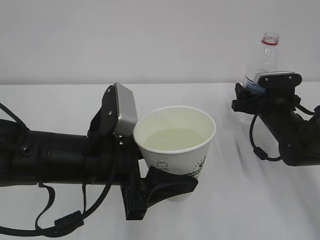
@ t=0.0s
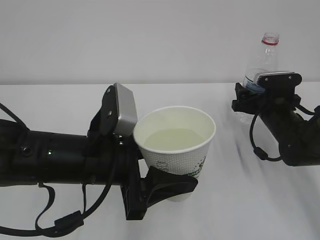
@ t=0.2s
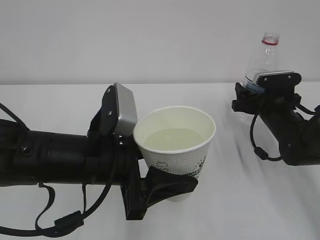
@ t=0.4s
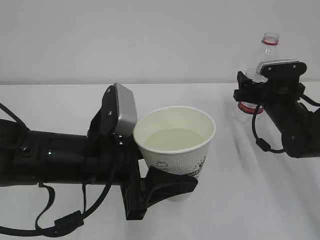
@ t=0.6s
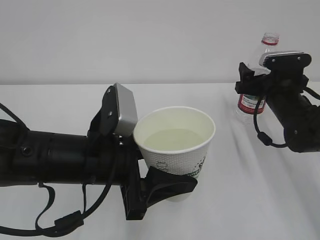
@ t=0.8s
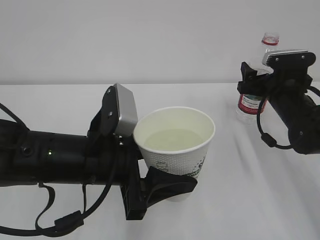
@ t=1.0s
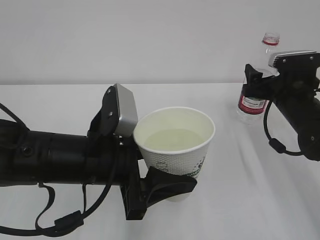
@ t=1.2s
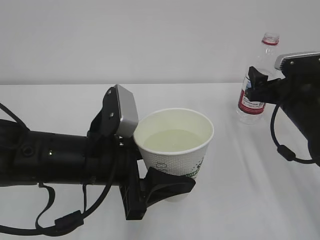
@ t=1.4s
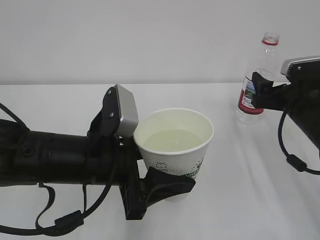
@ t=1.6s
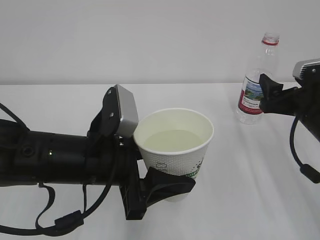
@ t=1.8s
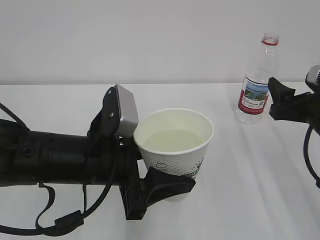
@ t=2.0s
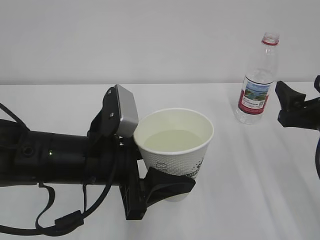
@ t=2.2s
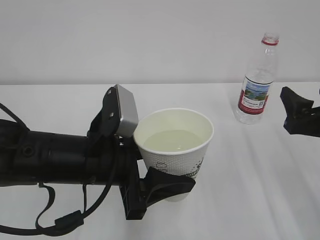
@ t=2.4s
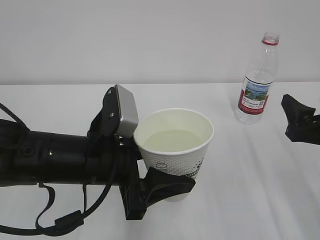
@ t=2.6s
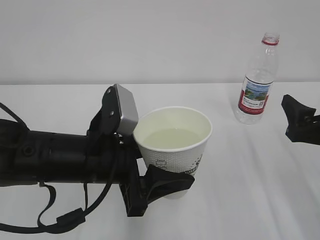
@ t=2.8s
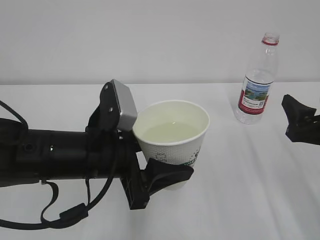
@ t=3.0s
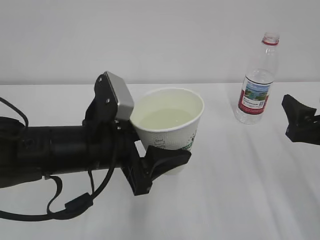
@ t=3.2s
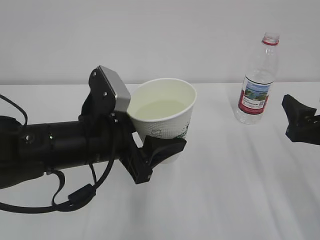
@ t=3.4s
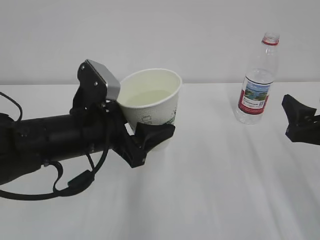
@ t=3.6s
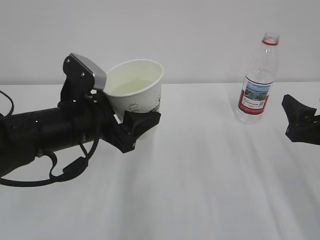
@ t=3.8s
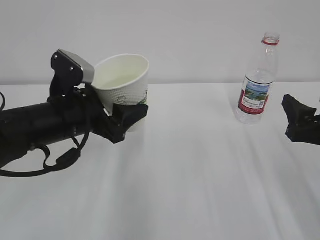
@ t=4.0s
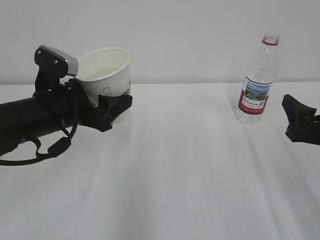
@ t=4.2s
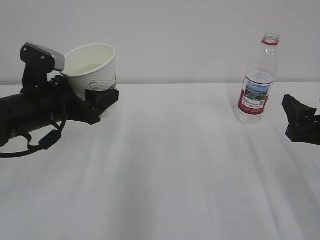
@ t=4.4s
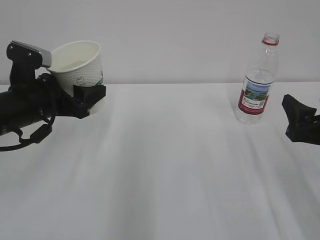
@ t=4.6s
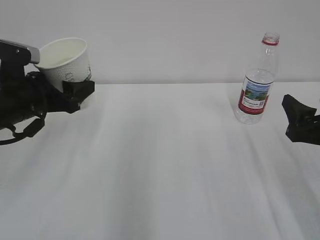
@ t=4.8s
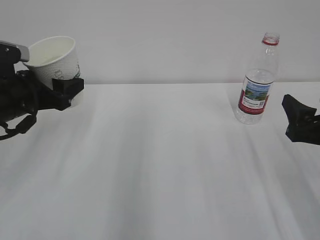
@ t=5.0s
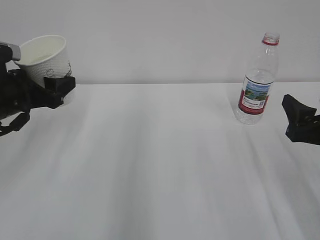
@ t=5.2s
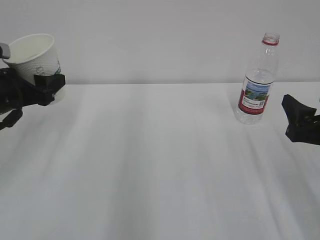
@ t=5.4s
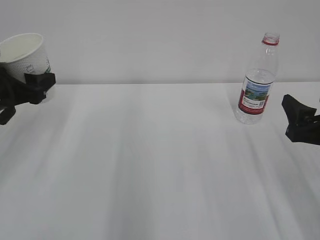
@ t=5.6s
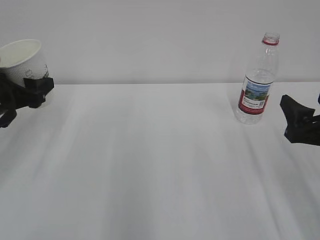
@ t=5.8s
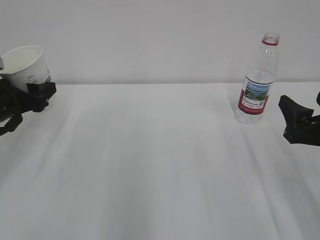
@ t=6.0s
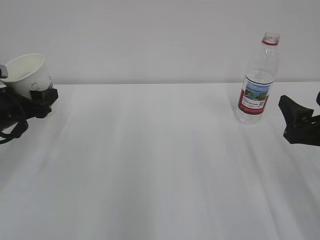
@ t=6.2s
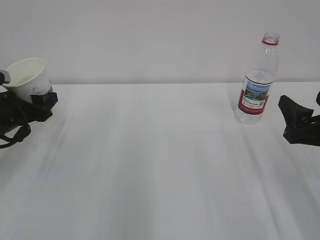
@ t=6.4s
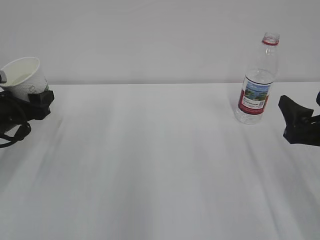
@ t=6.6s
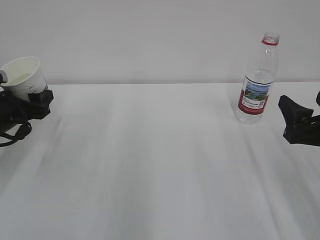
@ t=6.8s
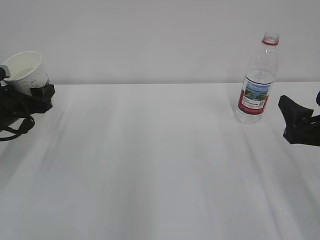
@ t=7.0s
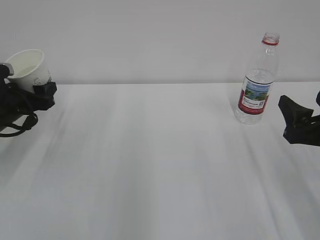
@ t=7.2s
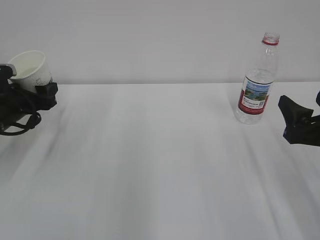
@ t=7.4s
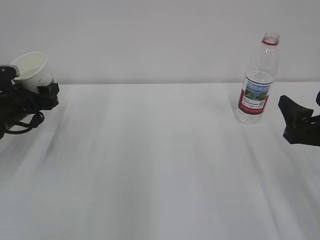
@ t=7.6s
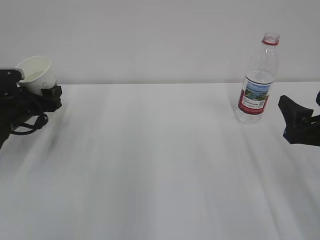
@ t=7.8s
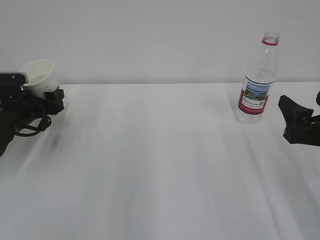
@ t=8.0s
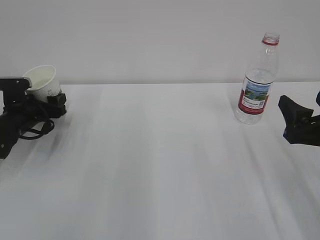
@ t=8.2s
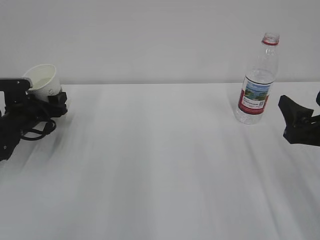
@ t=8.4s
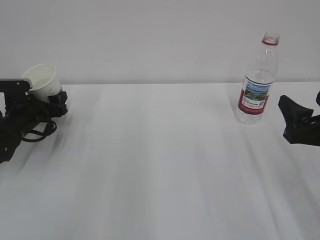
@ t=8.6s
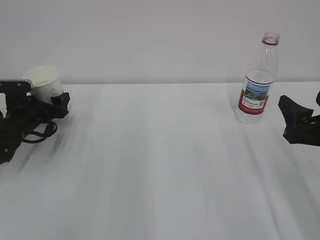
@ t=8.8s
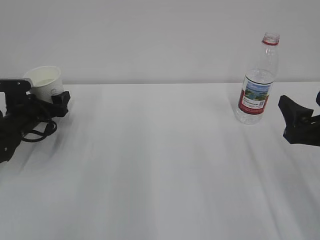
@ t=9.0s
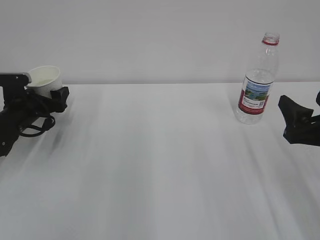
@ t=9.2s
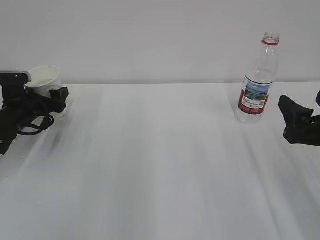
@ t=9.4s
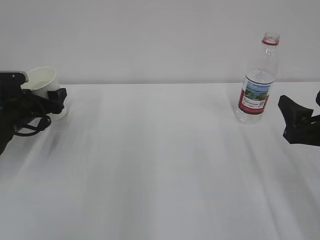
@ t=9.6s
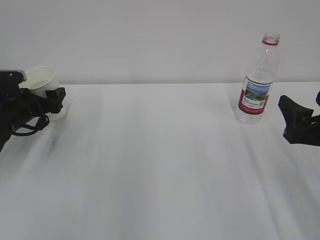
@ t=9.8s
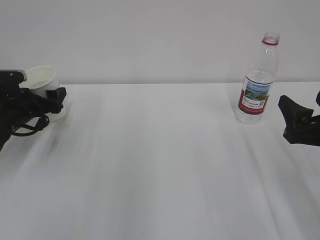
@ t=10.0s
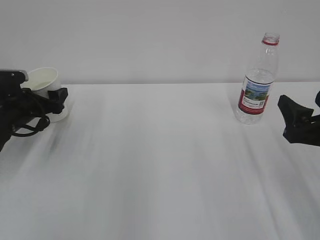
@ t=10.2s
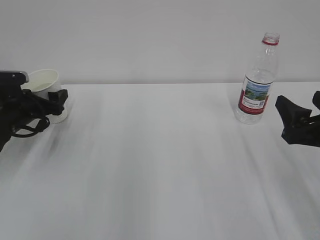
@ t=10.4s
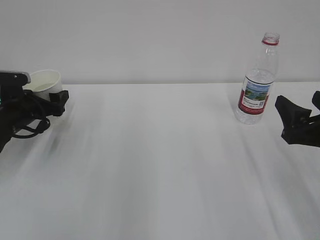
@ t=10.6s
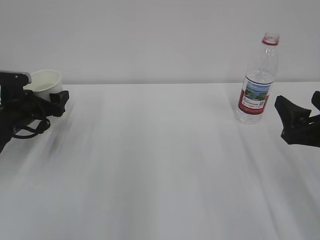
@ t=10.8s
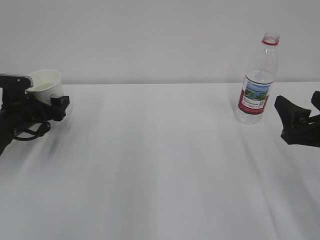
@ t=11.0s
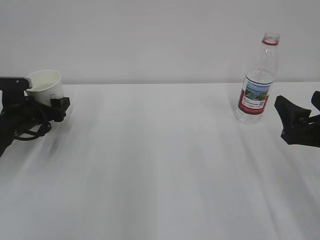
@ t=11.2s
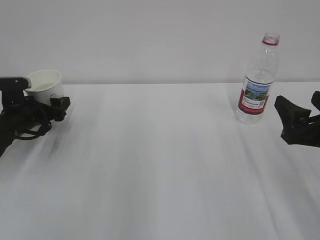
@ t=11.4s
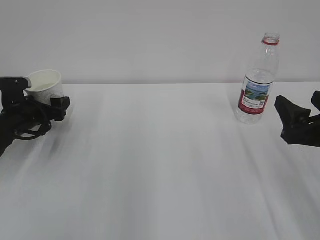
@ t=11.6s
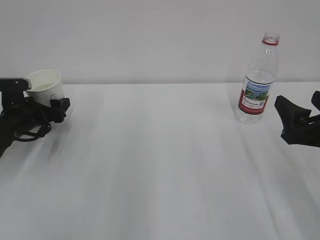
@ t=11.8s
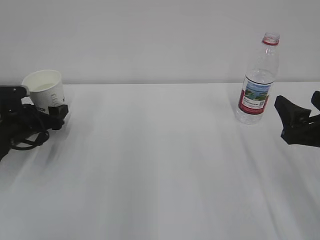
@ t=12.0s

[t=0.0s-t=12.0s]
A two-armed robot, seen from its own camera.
t=0.0s to t=1.6s: The right gripper heads backward and upward, covering roughly 10 cm.
t=1.6s to t=3.0s: The right gripper travels backward by about 10 cm.
t=3.0s to t=4.4s: The left gripper shifts some 15 cm to the left and forward.
t=4.4s to t=6.0s: The left gripper shifts approximately 10 cm to the left.
t=6.0s to t=7.6s: The left gripper is displaced forward and downward by roughly 10 cm.
t=7.6s to t=9.0s: The left gripper opens up.
t=9.0s to t=12.0s: The grippers move only a little.

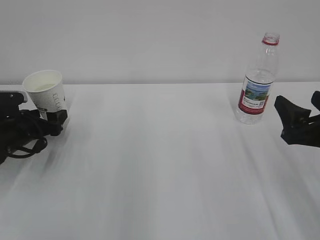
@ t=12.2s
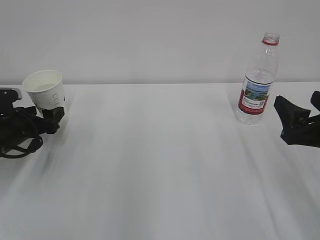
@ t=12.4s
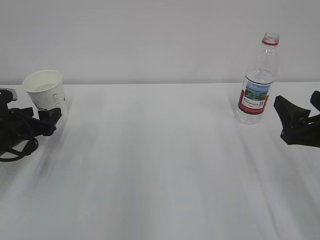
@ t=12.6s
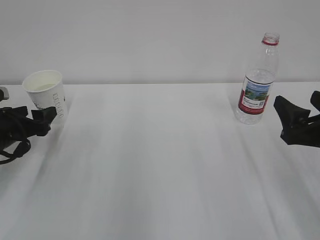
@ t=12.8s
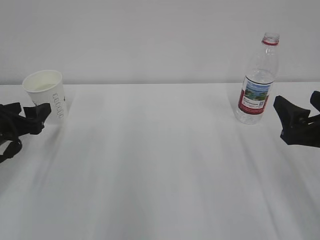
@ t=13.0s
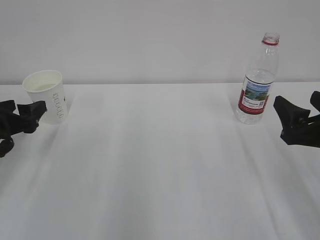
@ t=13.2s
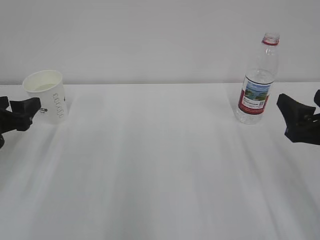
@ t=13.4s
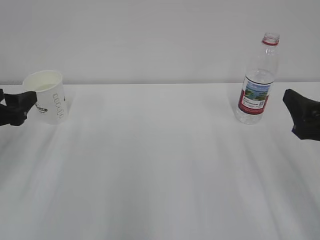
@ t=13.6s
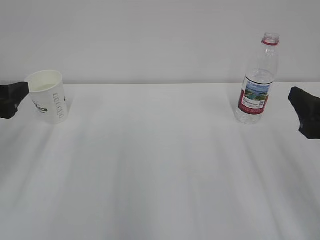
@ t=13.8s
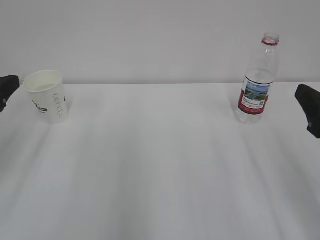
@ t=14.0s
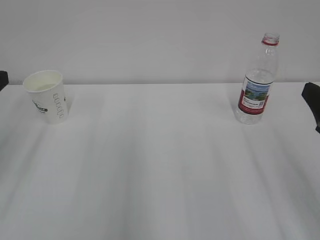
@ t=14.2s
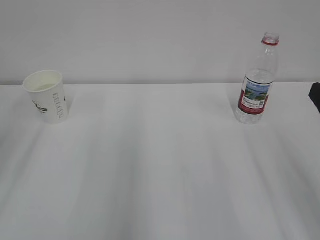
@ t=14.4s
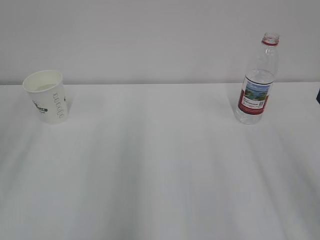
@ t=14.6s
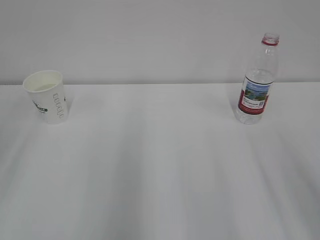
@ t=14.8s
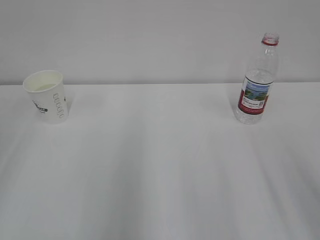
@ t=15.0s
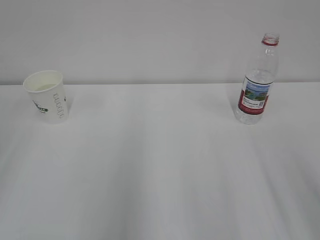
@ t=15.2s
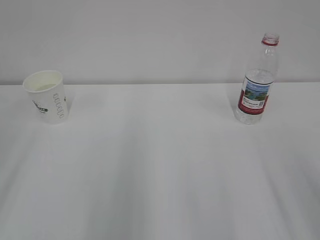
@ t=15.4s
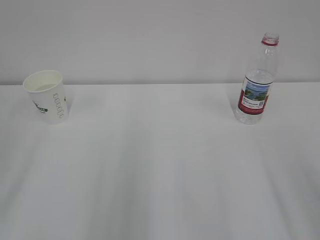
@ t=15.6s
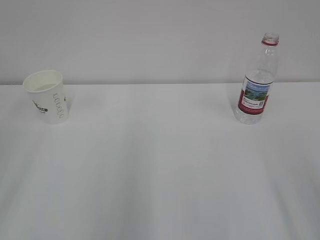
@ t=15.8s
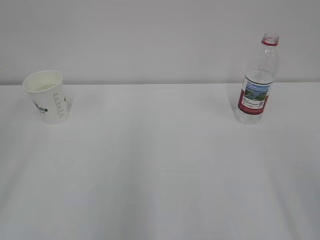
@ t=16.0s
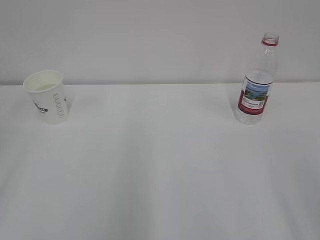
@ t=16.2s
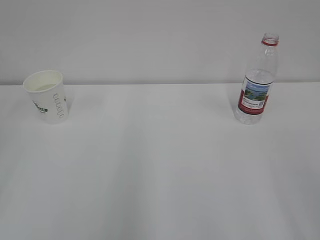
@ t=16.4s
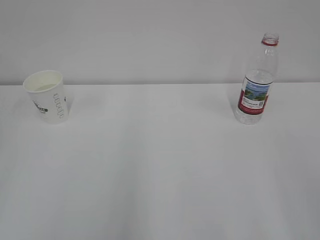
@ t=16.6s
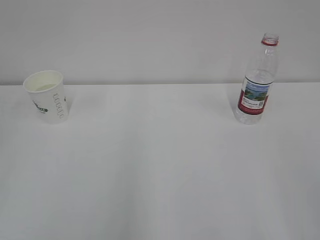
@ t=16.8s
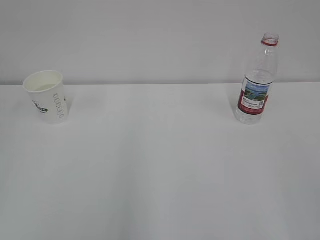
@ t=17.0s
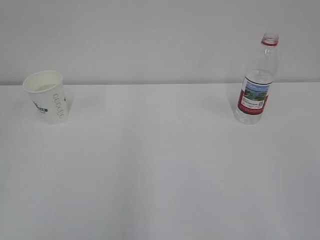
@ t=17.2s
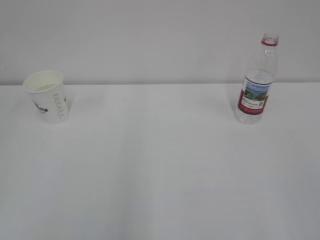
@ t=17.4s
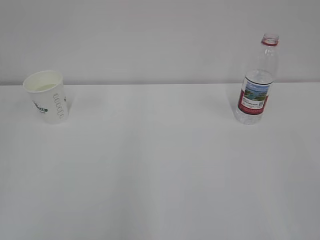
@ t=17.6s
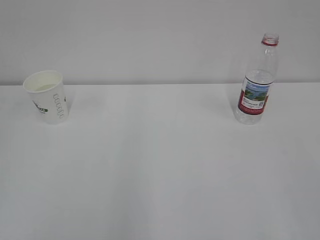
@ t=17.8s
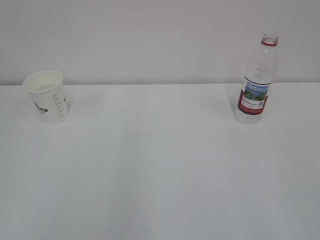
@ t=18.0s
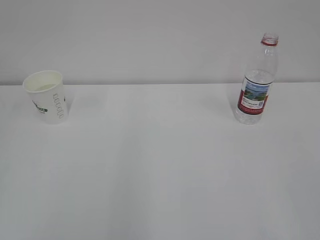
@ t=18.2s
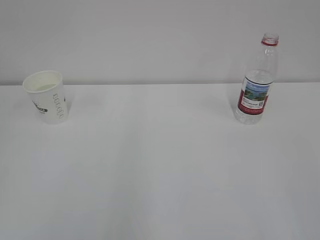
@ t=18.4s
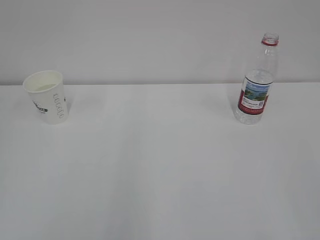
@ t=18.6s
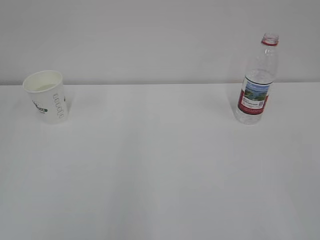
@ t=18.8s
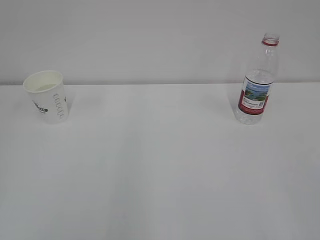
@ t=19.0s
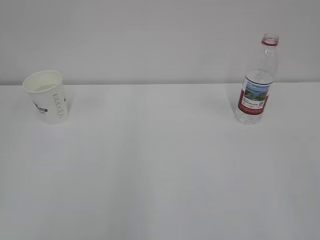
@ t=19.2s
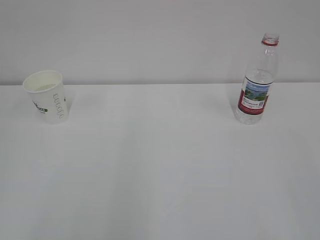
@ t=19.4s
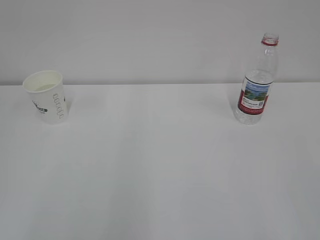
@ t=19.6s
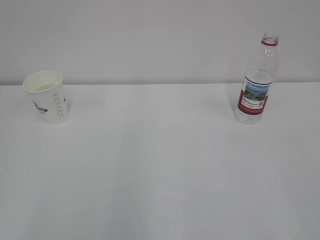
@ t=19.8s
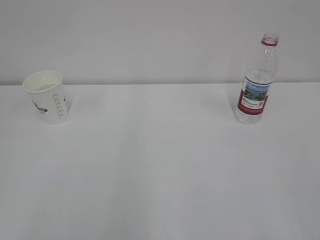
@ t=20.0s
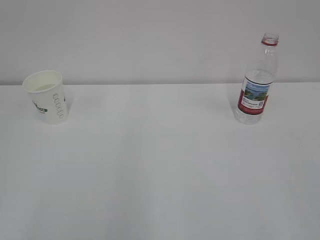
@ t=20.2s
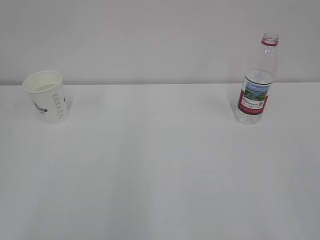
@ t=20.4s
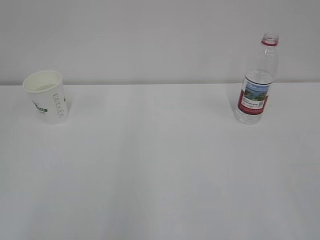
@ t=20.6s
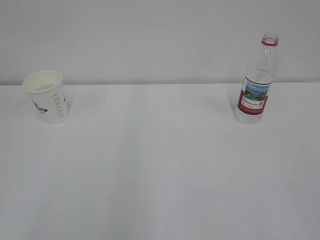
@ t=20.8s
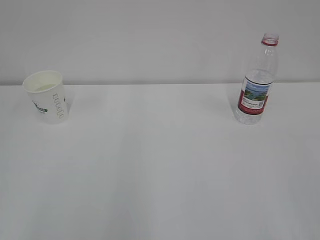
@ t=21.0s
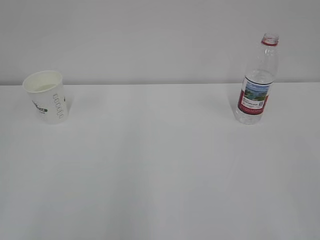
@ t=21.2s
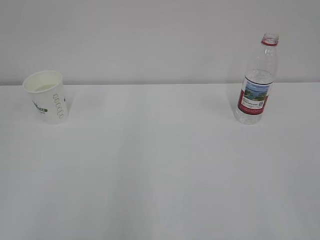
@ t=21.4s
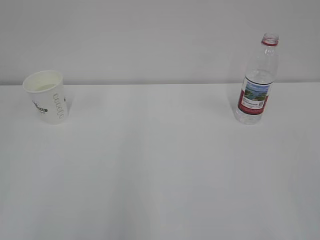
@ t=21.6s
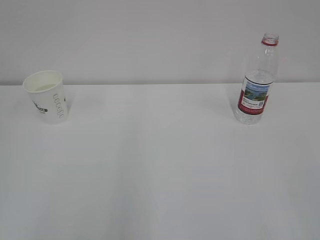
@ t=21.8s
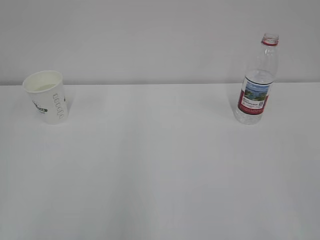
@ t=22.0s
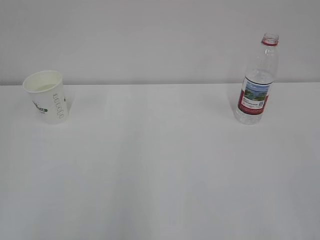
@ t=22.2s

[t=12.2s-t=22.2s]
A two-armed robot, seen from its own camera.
t=12.2s to t=13.6s: The left gripper goes some 15 cm upward and backward.
t=13.6s to t=15.0s: The right gripper heads backward and upward, covering about 10 cm, while the left gripper heads backward and upward, covering some 15 cm.
t=20.8s to t=22.2s: Neither gripper changes place.
